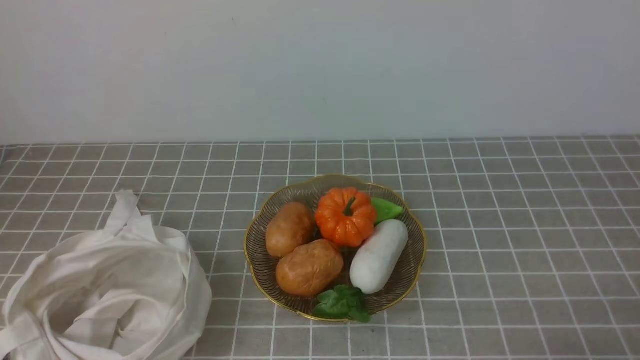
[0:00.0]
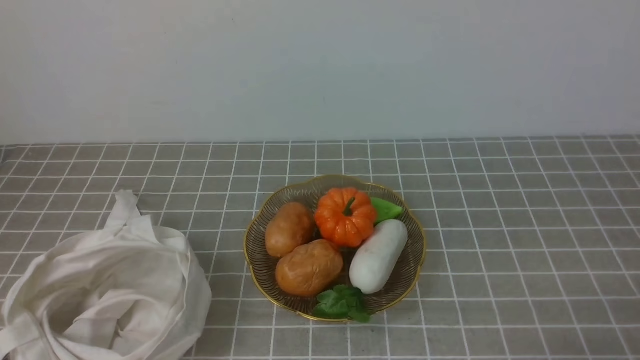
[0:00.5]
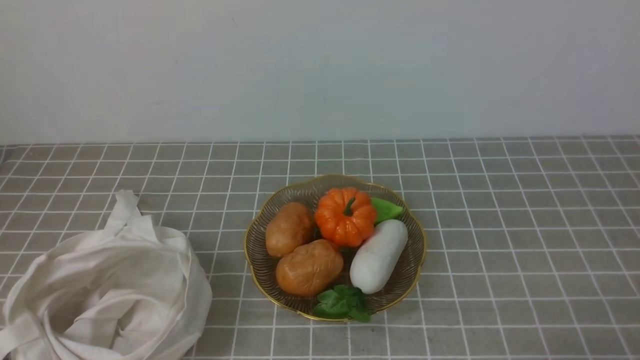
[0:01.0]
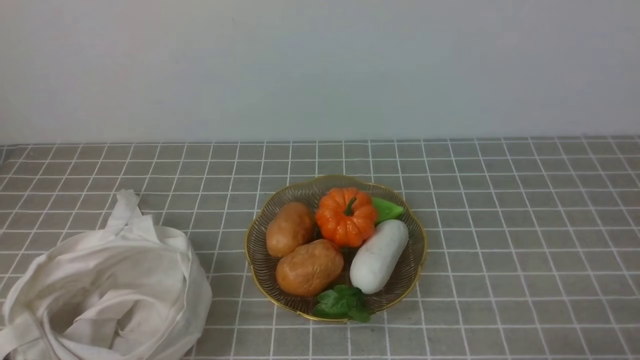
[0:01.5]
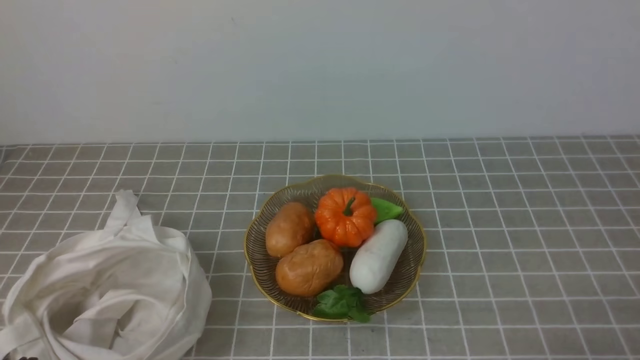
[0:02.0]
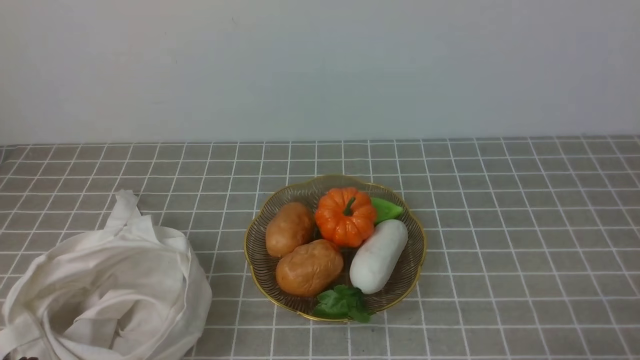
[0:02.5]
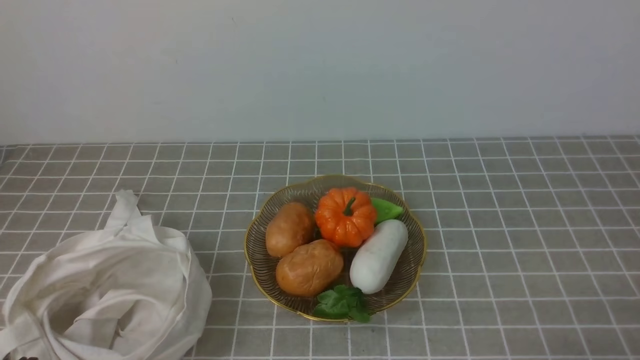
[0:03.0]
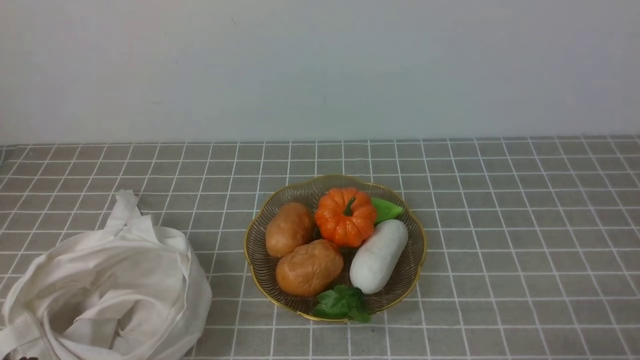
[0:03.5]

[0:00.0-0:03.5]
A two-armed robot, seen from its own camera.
Task of the whole recording: take vegetables from bag on grey coffee tablecloth place on plate.
0:02.0 to 0:03.5: Both grippers stay about where they are.
